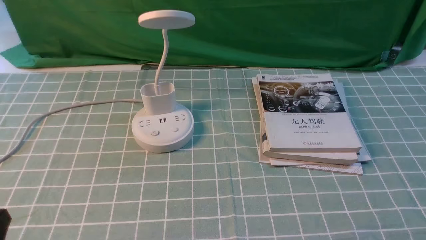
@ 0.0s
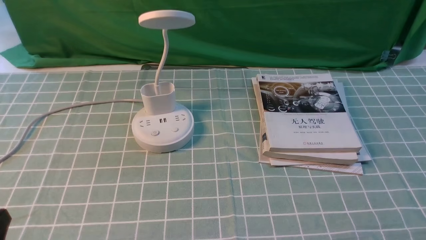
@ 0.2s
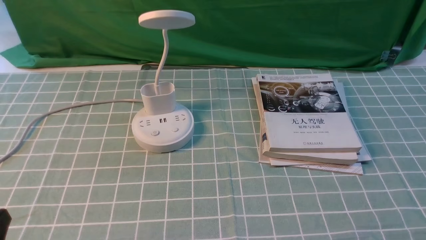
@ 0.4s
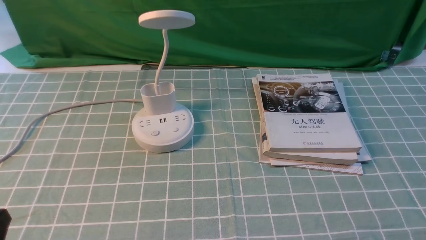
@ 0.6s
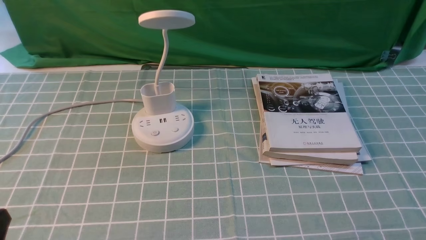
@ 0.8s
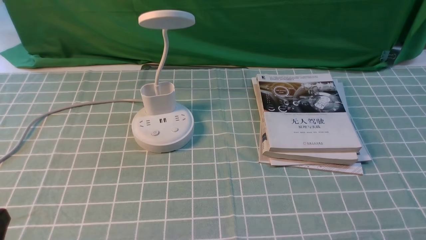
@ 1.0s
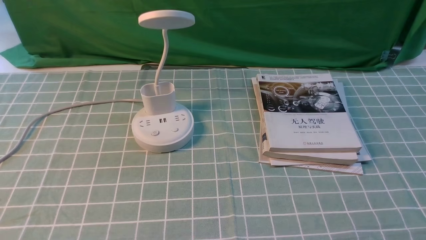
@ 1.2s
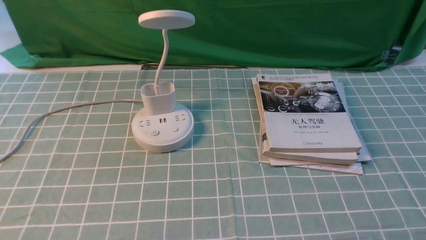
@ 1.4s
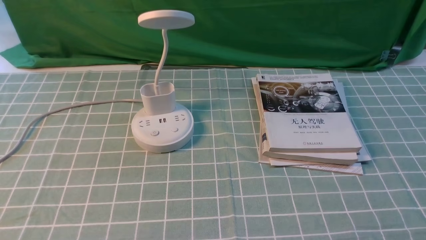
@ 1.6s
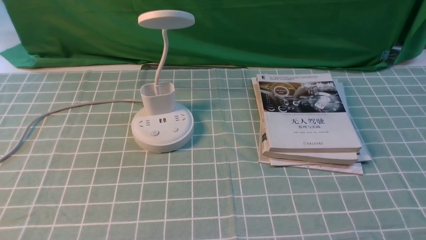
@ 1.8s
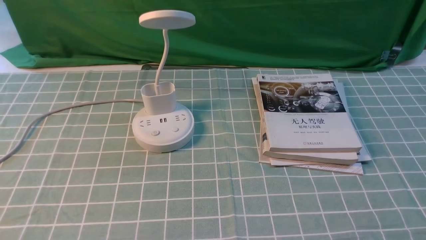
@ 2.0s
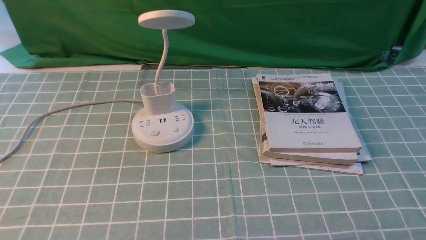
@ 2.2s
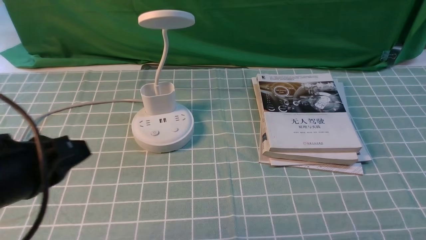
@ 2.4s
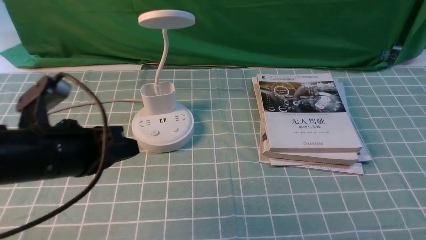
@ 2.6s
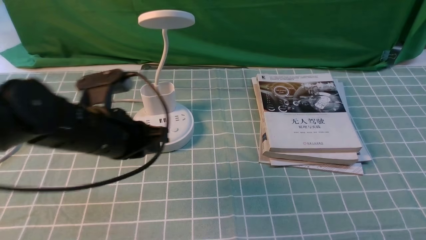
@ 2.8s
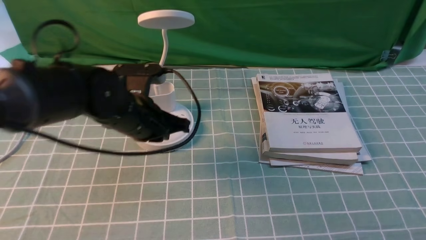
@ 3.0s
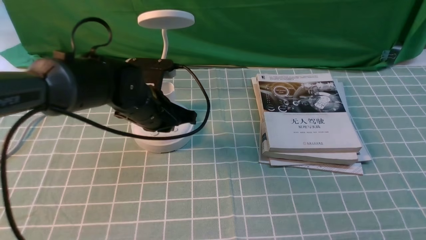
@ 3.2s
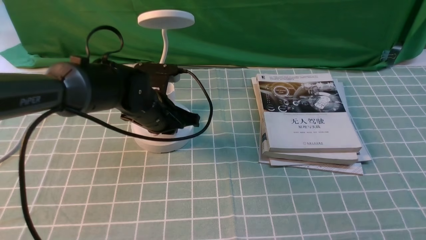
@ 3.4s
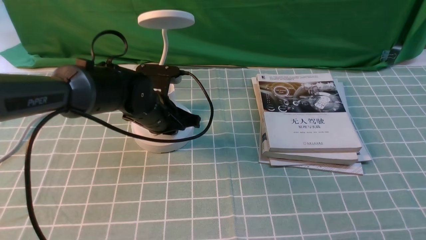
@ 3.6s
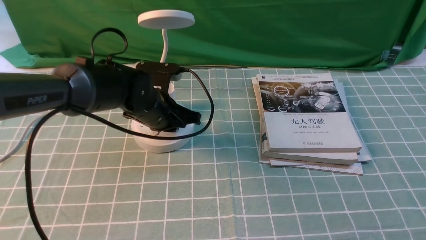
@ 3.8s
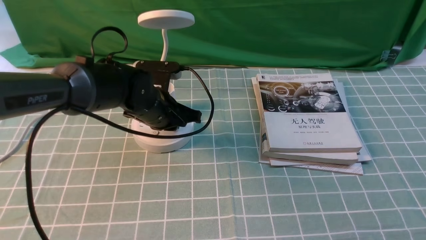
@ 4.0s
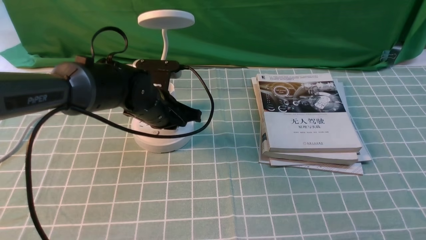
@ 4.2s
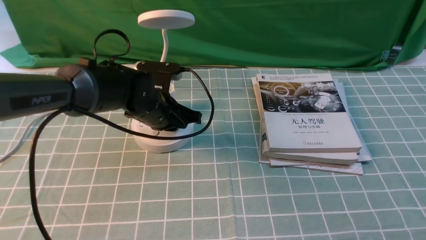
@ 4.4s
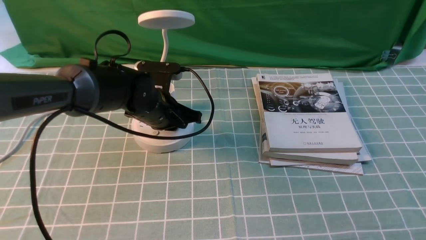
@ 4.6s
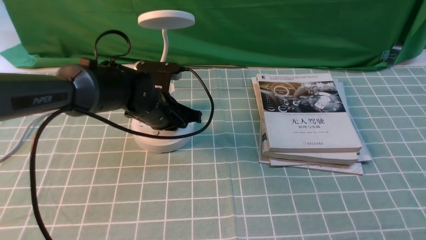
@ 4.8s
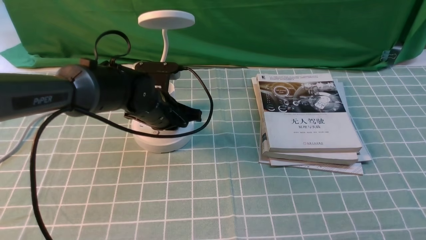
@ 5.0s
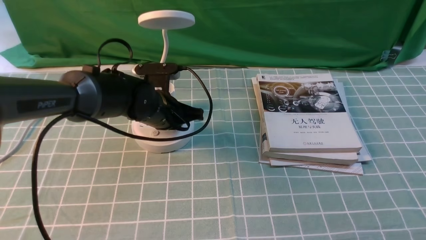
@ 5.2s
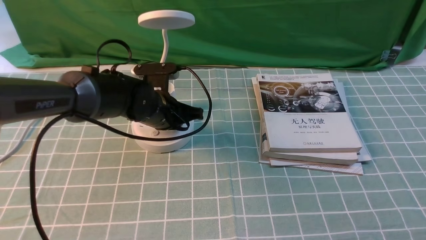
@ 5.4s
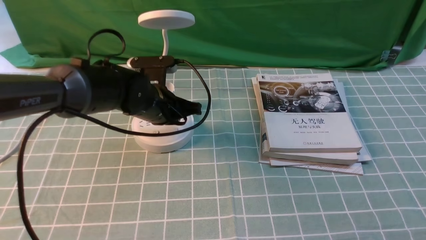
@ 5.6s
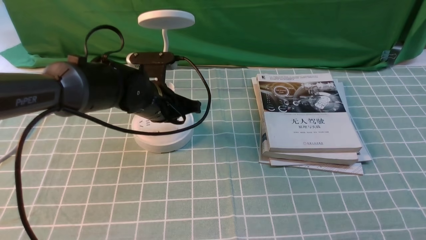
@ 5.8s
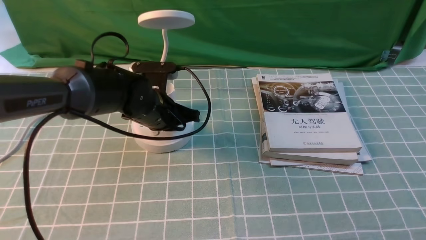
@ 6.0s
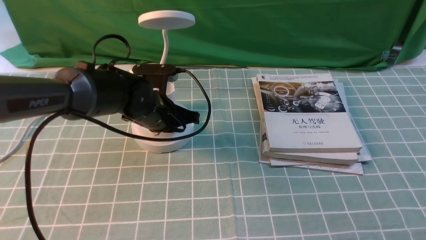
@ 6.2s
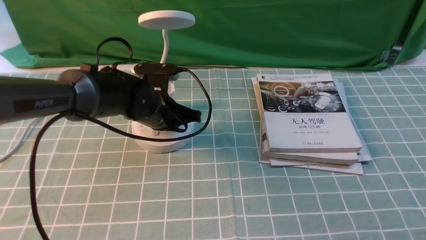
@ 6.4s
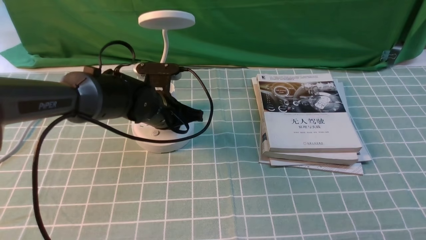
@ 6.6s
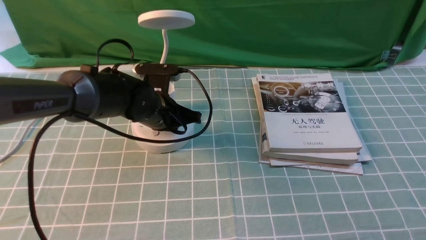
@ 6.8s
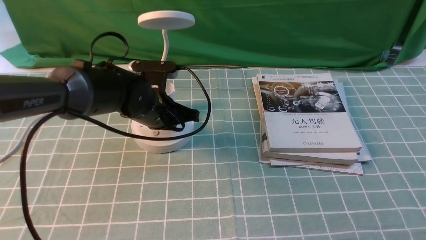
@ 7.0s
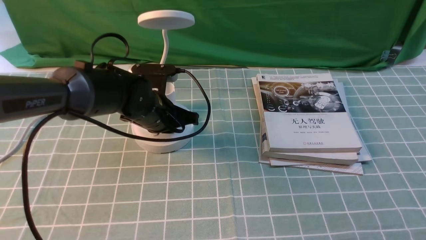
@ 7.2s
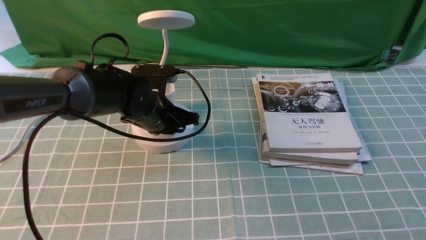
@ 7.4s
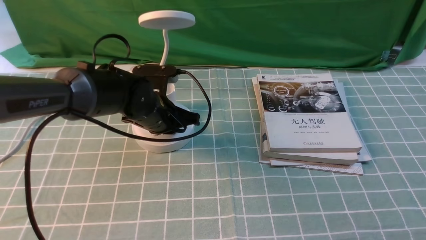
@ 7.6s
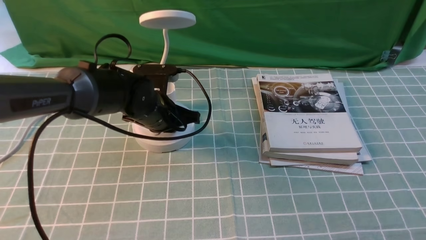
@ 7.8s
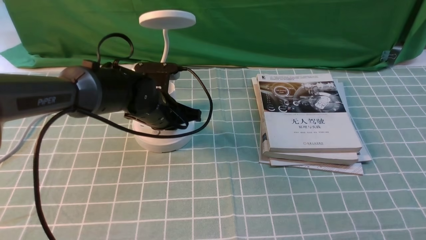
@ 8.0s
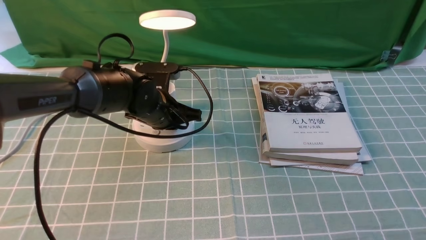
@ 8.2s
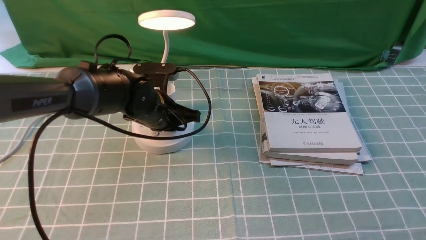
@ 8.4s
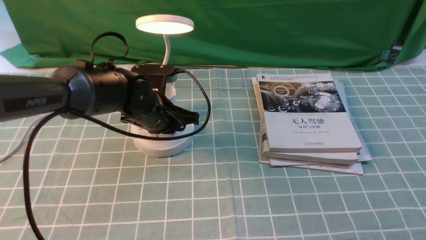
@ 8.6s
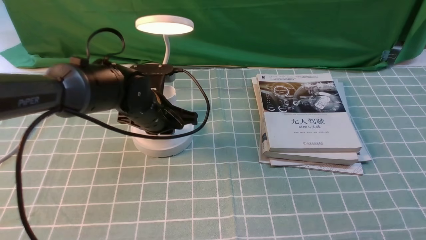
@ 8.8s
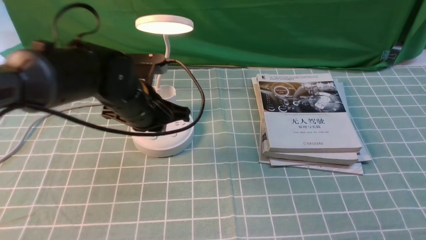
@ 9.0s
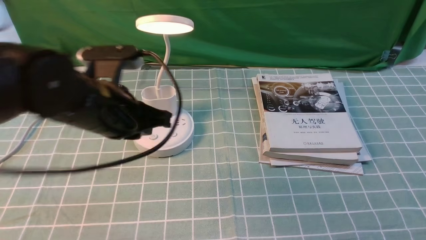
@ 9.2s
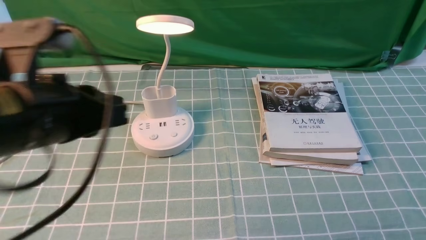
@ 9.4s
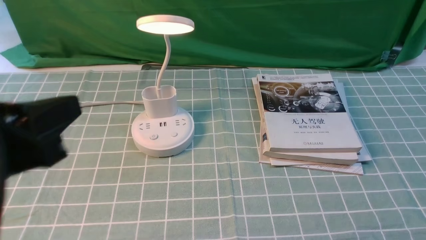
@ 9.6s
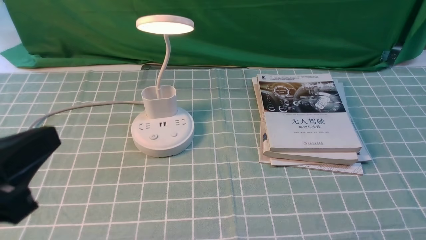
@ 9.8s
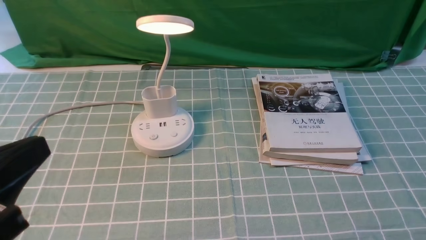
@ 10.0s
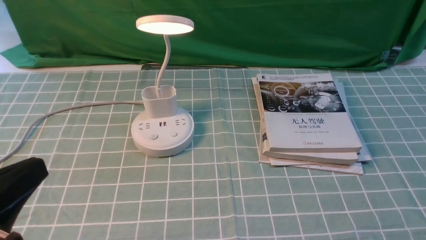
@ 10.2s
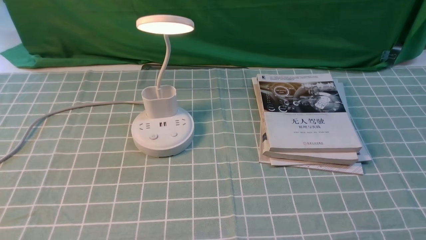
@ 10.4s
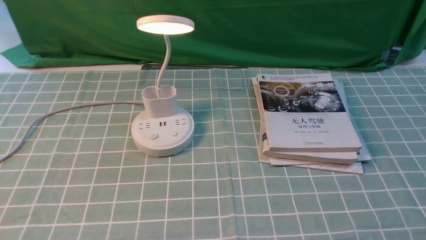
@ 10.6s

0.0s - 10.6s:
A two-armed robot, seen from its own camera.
Step, 0.0s - 8.6s: use the left arm to press the button switch on the lamp holder.
1.6s - 3.0s: The left gripper heads forward and to the right, covering some 35 cm.
3.0s - 4.6s: The left gripper goes some 5 cm forward.
4.6s - 7.6s: There are only small adjustments of the grippers.
7.6s - 9.0s: The left gripper is displaced upward and backward by roughly 10 cm.
9.0s - 10.6s: The left gripper goes approximately 30 cm backward and to the left.

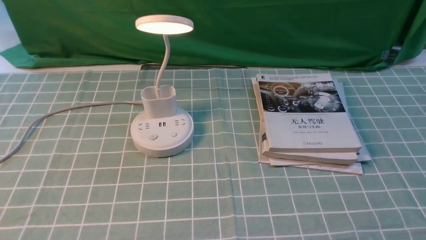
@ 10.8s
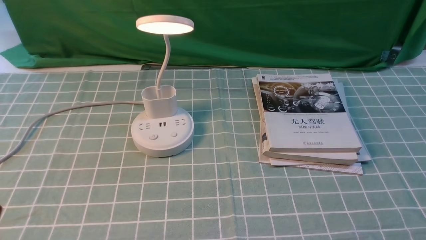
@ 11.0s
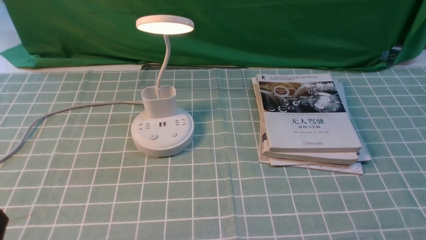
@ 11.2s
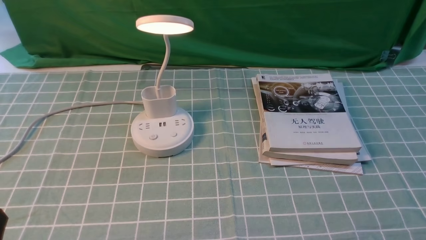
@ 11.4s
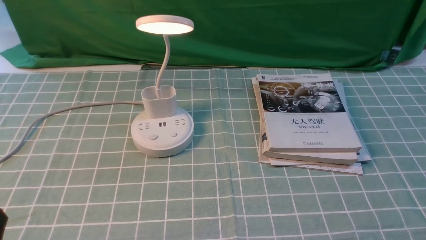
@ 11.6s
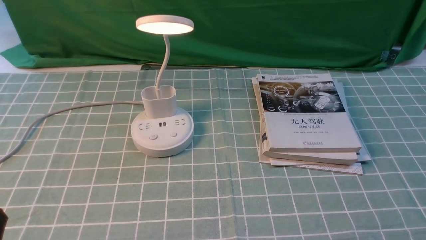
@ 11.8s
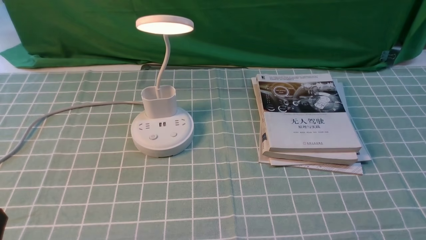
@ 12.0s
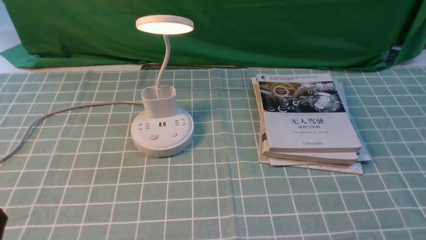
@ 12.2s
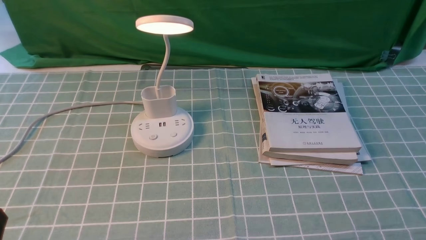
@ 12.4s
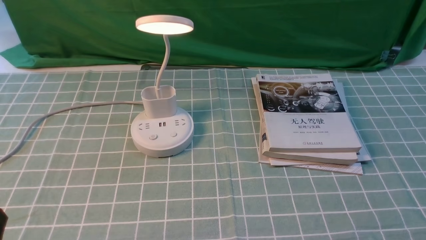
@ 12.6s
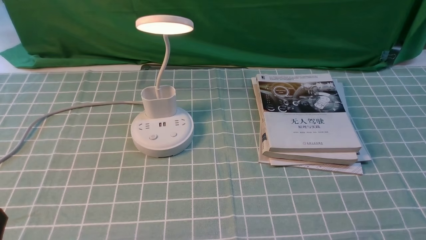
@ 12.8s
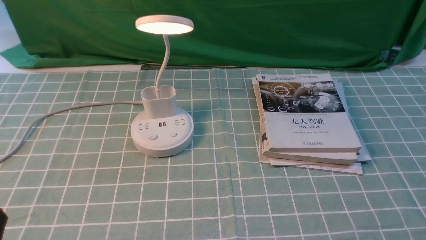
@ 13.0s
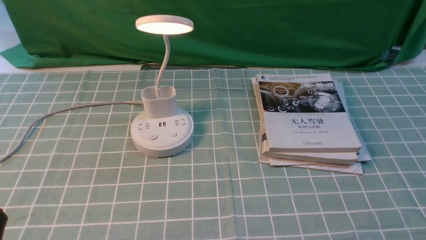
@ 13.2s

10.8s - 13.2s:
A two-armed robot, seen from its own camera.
12.0s - 13.2s: Both grippers stay put.
